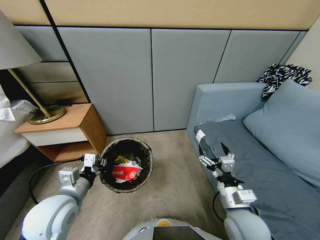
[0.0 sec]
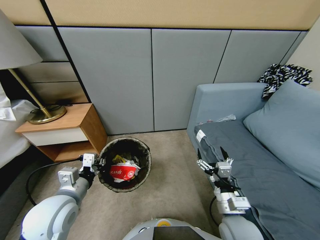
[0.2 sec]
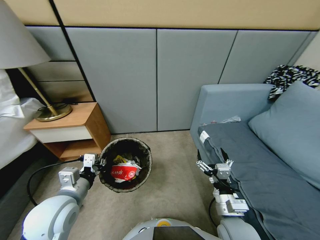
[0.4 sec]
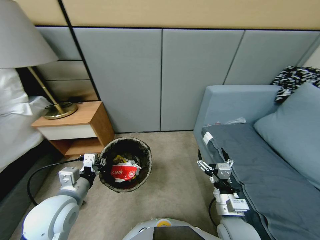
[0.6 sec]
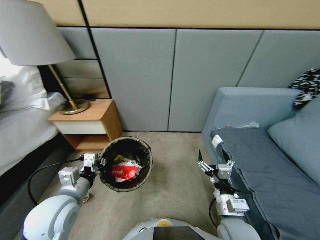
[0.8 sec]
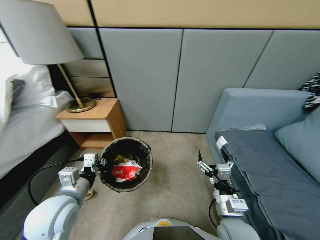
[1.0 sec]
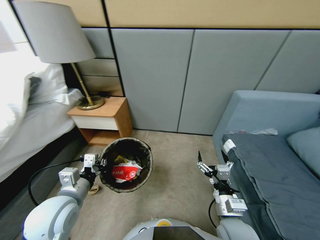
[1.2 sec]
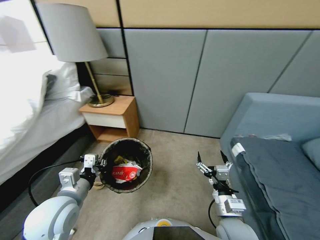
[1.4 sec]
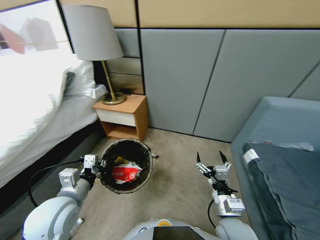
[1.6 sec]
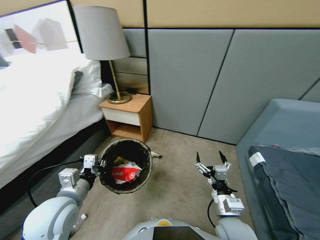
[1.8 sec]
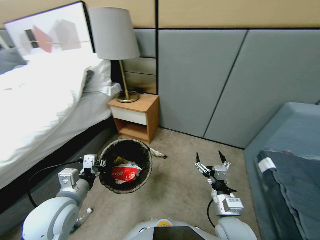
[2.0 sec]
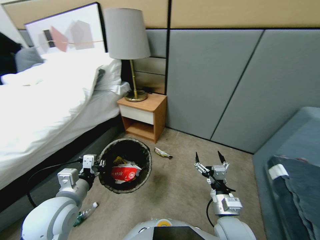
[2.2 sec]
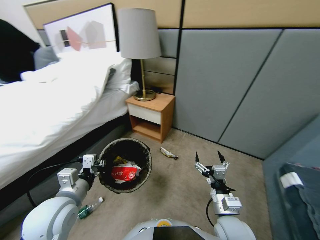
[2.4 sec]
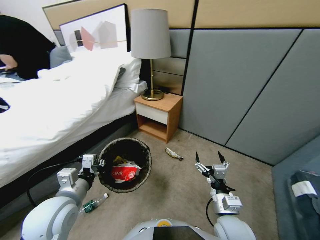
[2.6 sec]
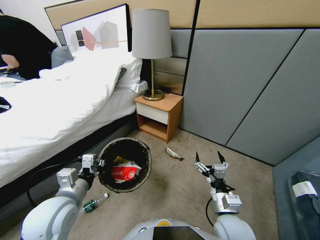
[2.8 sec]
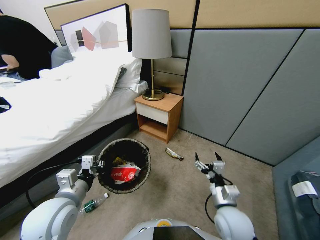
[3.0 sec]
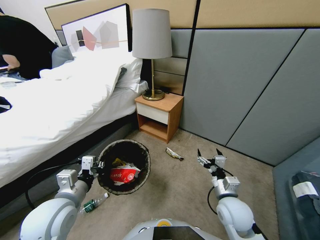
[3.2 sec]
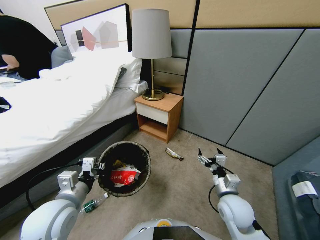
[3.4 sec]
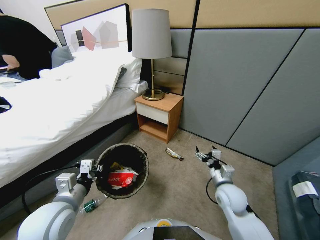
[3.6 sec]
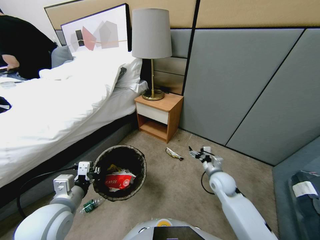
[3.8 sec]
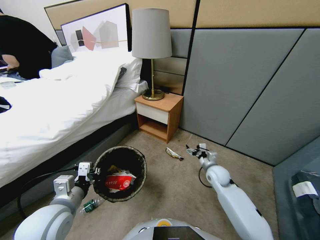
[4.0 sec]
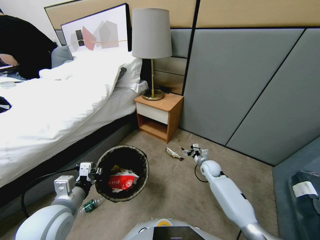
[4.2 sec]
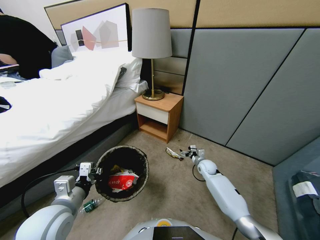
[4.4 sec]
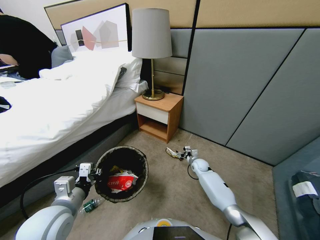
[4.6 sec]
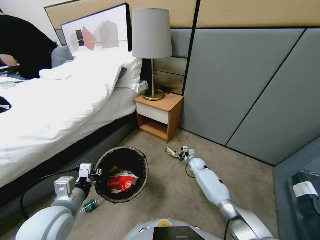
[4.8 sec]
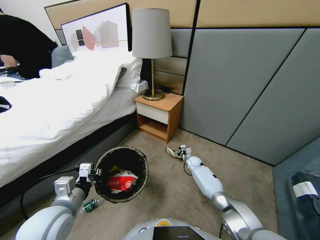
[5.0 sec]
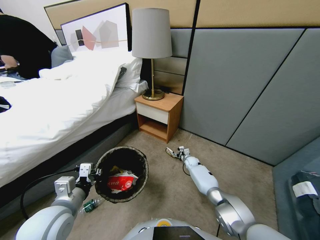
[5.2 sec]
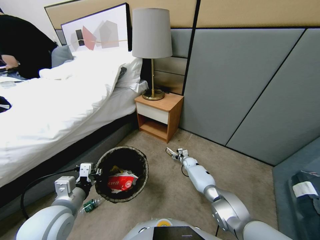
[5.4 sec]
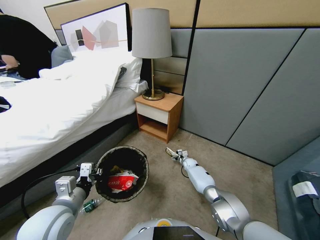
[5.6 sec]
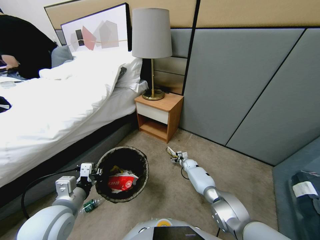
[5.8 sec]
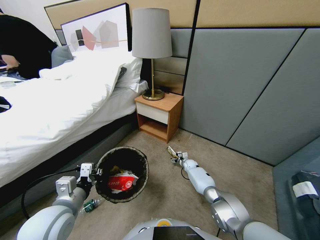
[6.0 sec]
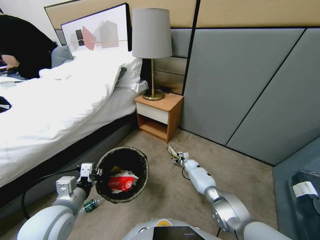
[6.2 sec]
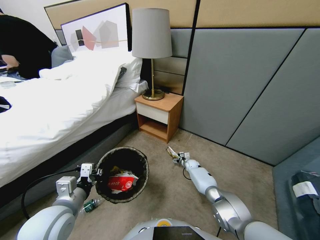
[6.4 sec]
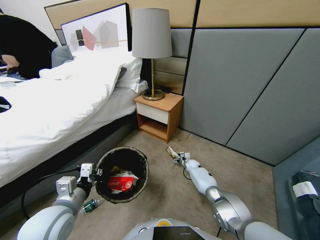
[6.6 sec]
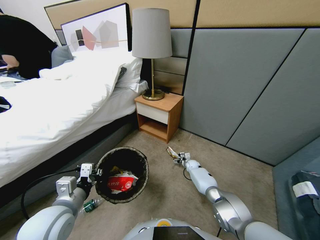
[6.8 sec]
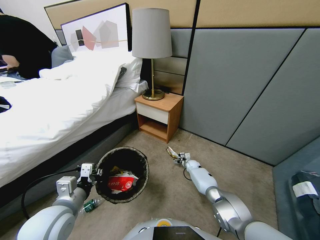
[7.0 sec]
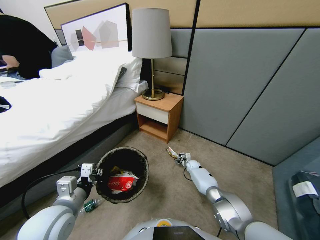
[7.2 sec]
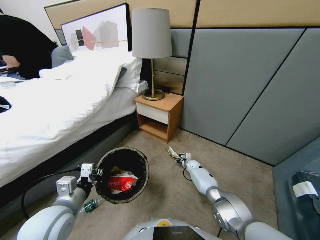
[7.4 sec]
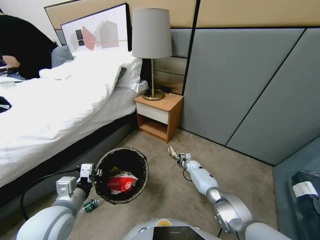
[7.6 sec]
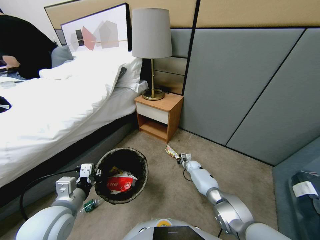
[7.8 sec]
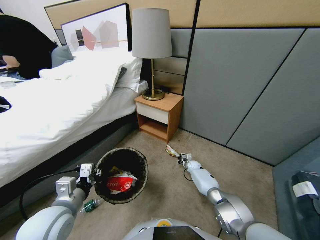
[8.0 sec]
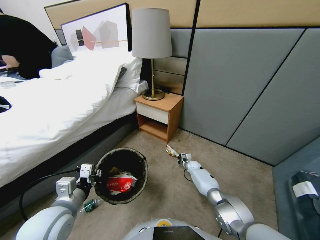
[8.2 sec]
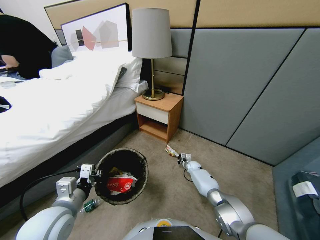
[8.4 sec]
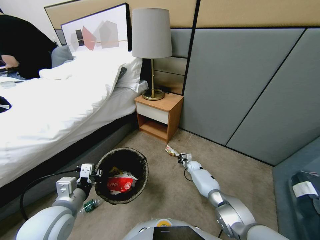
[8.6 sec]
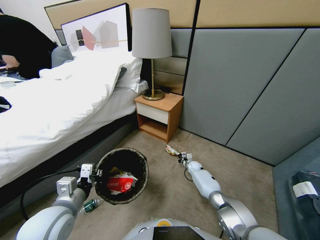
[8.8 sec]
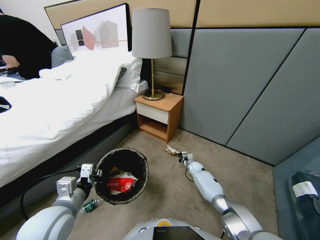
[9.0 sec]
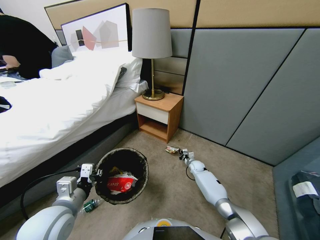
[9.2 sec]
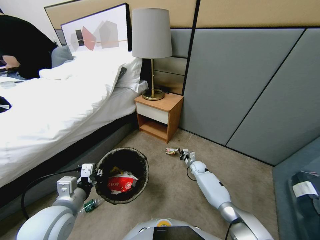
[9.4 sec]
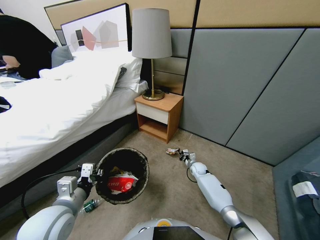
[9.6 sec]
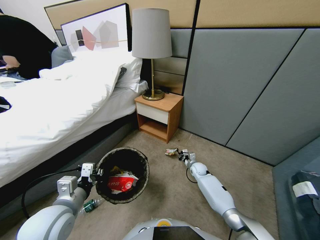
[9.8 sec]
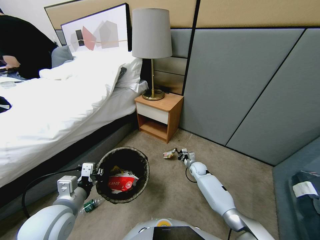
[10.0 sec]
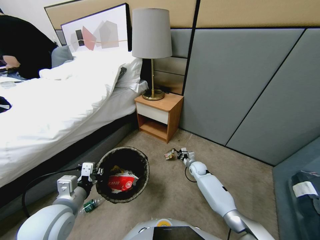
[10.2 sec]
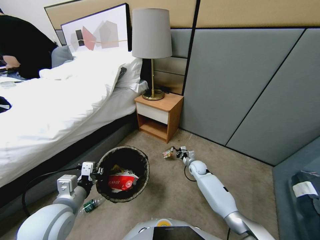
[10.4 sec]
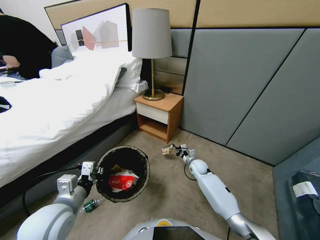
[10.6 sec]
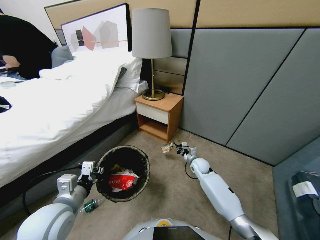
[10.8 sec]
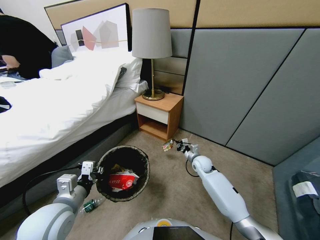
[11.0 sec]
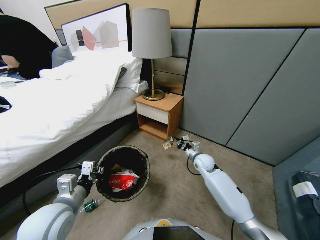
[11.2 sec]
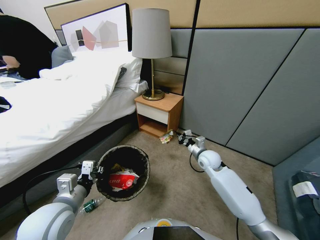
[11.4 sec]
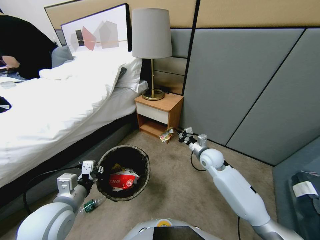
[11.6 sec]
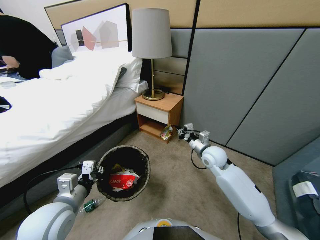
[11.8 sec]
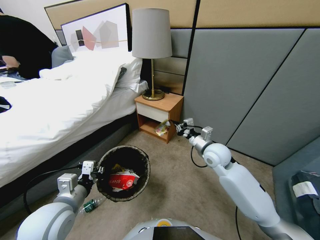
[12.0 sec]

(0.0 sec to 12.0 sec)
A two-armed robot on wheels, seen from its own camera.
Task of the whole recording: Pick up the trash bin, then pick up the garbage from the floor and place it into the trash bin.
1.6 sec - 3.0 sec: The right gripper changes place by some 5 cm.
3.0 sec - 4.4 sec: The right gripper moves forward and downward, roughly 30 cm.
4.4 sec - 6.0 sec: The right gripper moves downward and forward, some 10 cm.
6.0 sec - 7.6 sec: The right gripper closes up.
7.6 sec - 9.0 sec: There are only small adjustments of the grippers.
9.0 sec - 10.4 sec: The right gripper goes about 10 cm upward.
10.4 sec - 12.0 sec: The right gripper moves upward, some 25 cm.

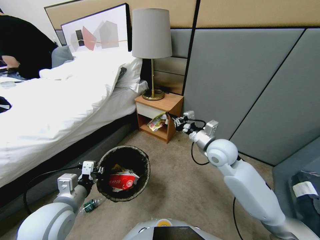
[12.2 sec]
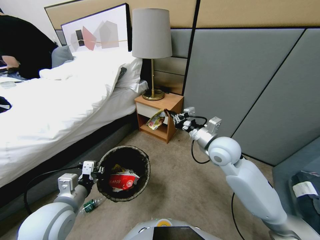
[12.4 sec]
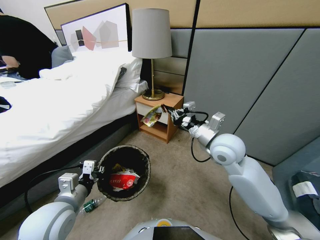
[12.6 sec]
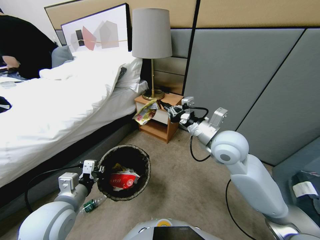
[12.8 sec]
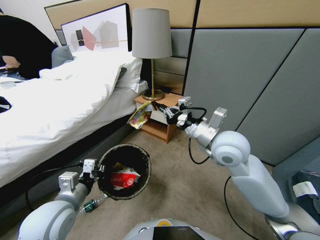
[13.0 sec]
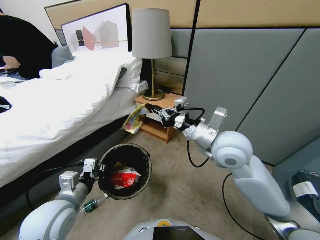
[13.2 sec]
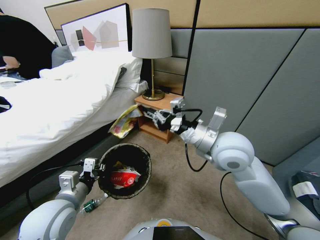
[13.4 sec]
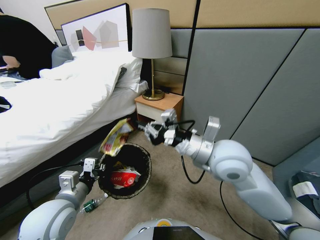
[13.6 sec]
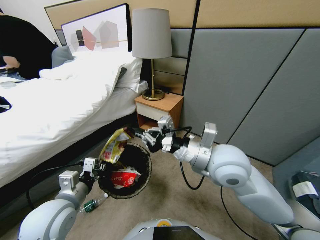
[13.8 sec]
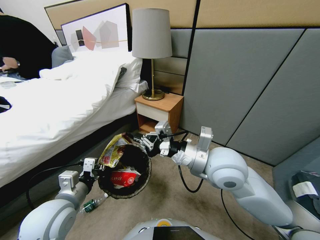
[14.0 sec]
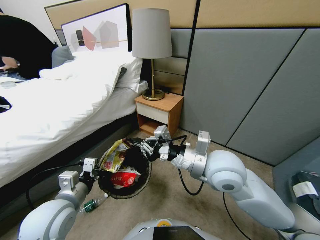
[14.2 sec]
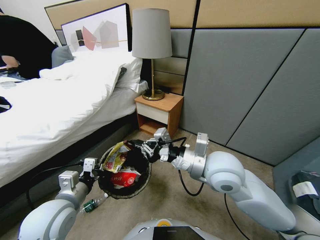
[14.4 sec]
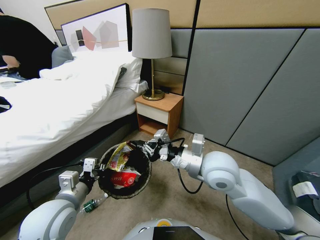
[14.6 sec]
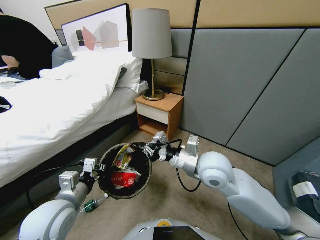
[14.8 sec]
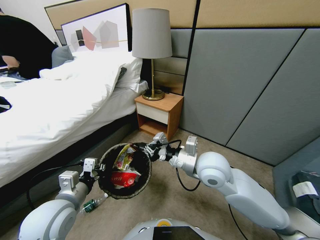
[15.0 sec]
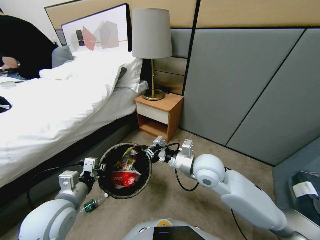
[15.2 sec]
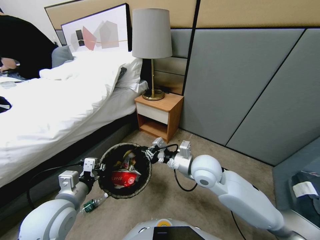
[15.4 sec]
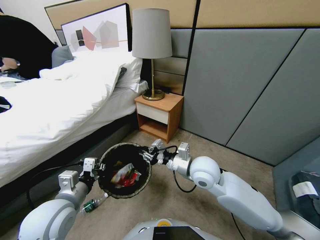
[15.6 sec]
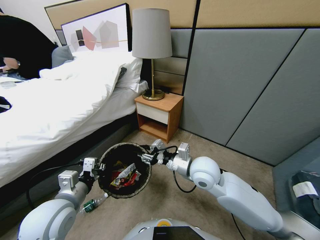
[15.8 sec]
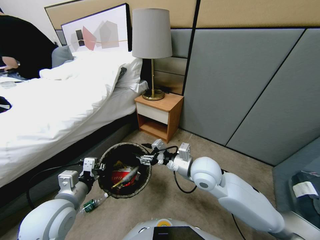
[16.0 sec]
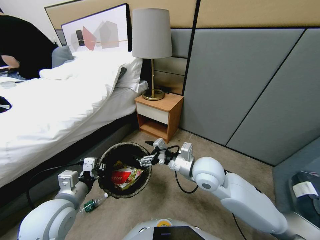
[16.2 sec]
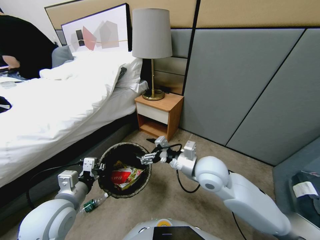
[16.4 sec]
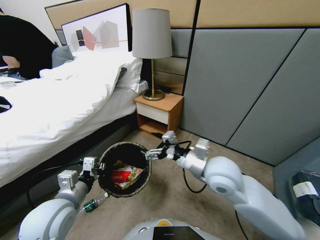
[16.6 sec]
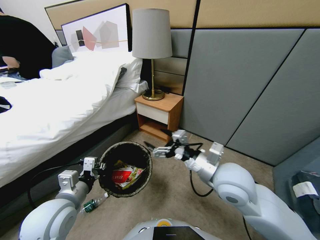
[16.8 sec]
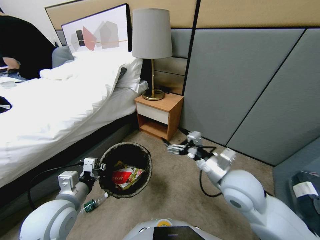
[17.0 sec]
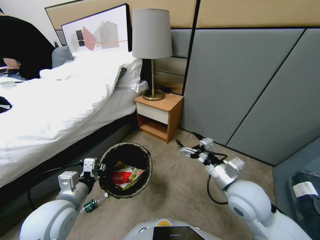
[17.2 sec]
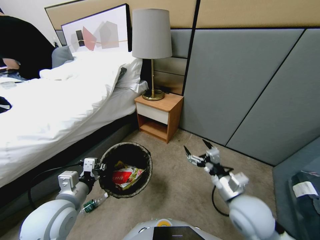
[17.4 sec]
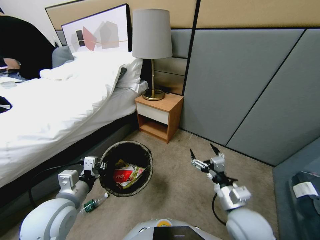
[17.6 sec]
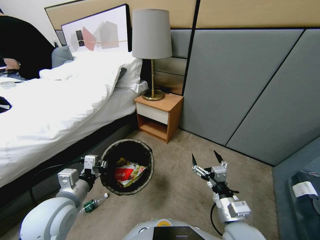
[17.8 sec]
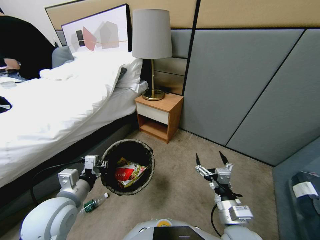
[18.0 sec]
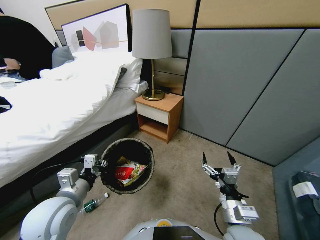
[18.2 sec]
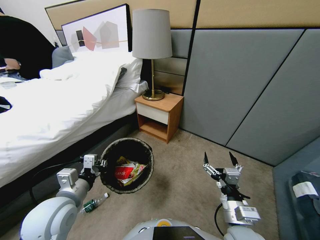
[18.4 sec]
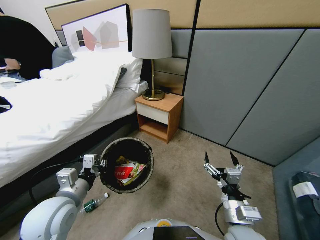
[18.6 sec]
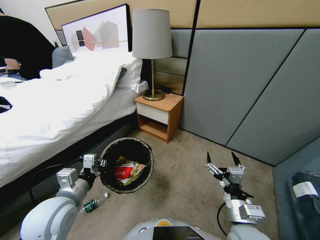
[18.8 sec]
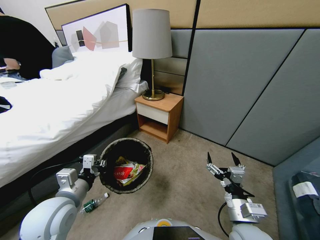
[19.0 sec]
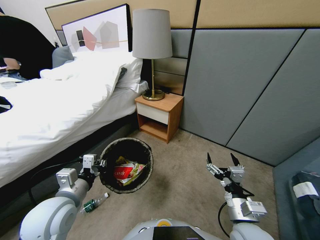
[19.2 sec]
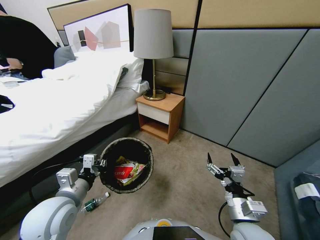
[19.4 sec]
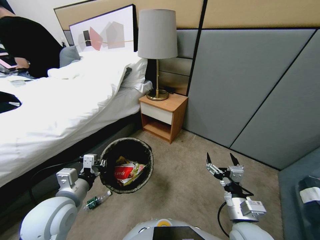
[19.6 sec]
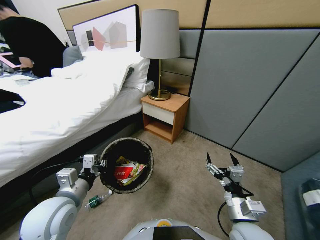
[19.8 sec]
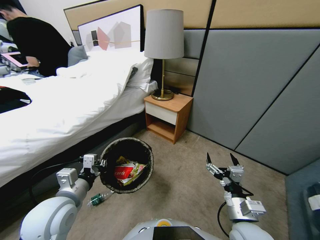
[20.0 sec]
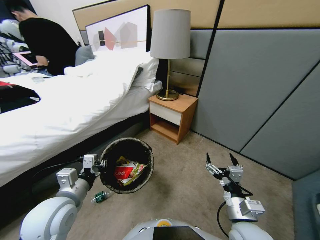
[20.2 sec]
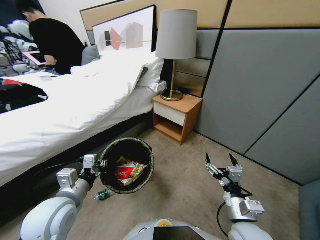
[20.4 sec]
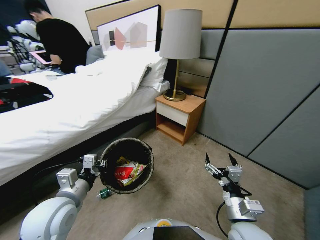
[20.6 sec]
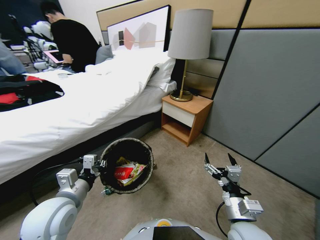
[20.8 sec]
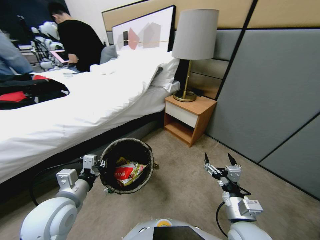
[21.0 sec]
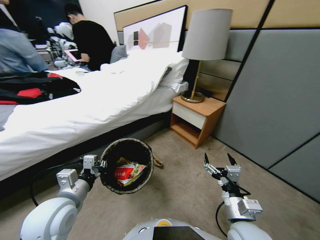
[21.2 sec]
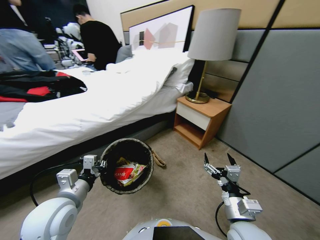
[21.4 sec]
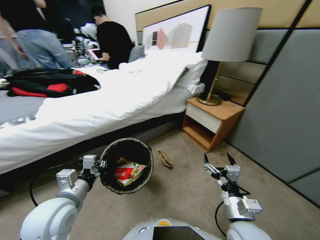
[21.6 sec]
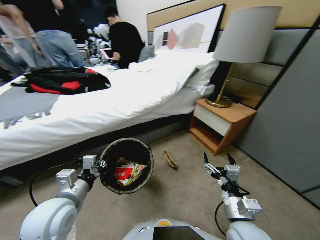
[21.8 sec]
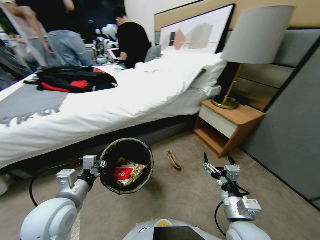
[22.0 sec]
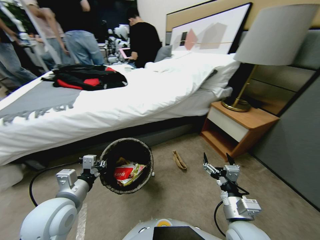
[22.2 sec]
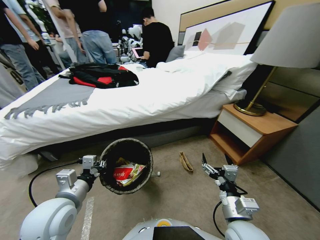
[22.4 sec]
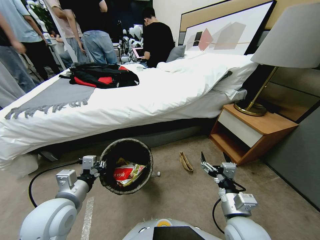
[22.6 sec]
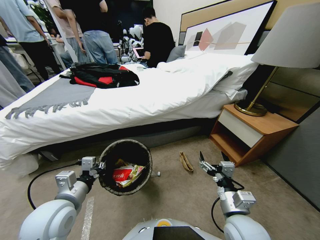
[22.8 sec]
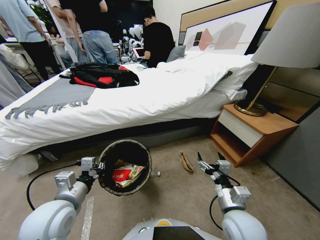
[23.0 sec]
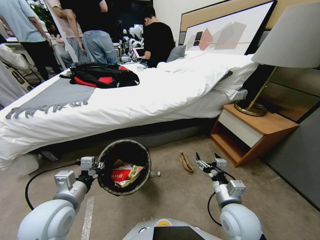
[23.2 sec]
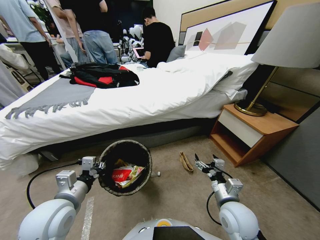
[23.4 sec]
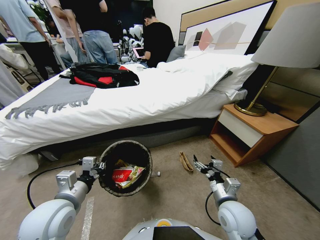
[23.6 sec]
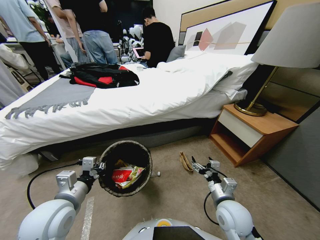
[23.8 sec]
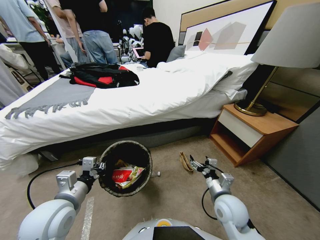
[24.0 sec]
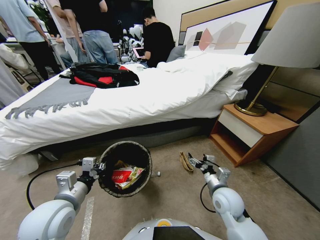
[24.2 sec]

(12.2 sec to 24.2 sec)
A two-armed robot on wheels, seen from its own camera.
Task of the whole recording: Pick up the trash bin, then pick up the garbage from the floor and place it into the trash bin.
12.2 sec - 13.8 sec: The right gripper travels backward, upward and to the left by approximately 10 cm.
13.8 sec - 15.2 sec: The right gripper travels downward by roughly 10 cm.
15.2 sec - 16.6 sec: The right gripper shifts by approximately 5 cm, and opens up.
16.6 sec - 18.2 sec: The right gripper heads backward and downward, covering approximately 20 cm.
22.6 sec - 24.2 sec: The right gripper goes roughly 15 cm forward and downward.
